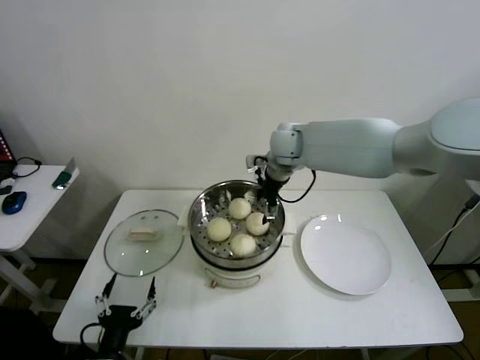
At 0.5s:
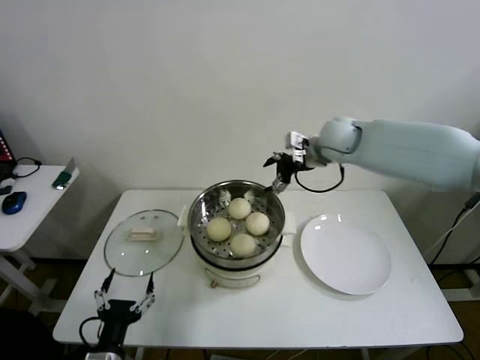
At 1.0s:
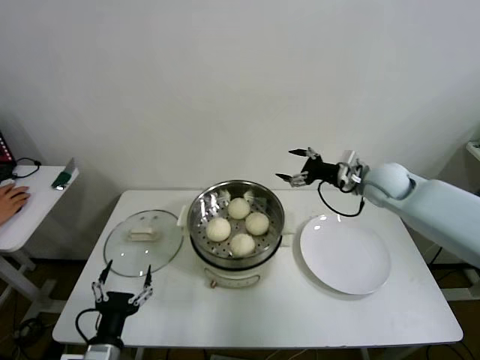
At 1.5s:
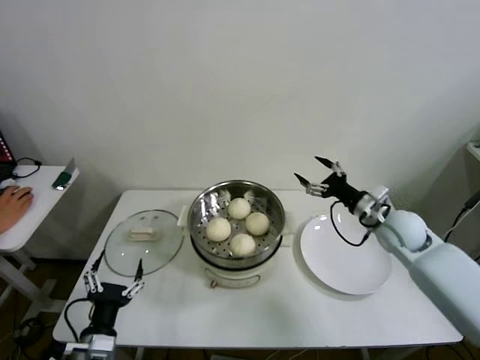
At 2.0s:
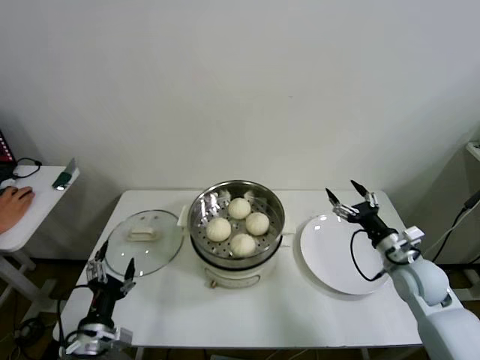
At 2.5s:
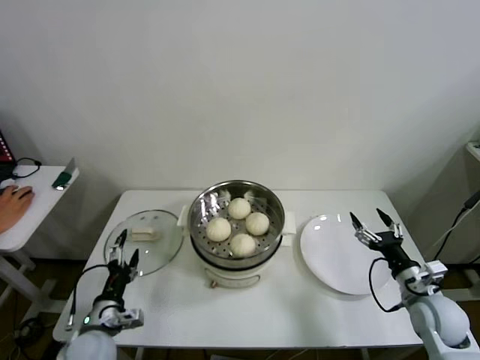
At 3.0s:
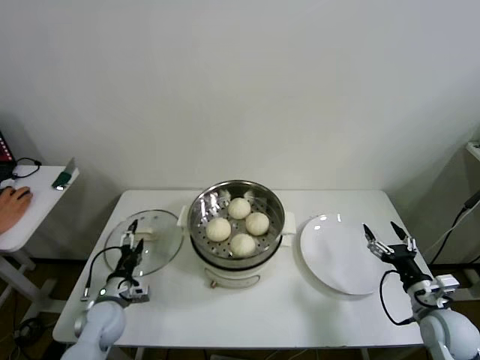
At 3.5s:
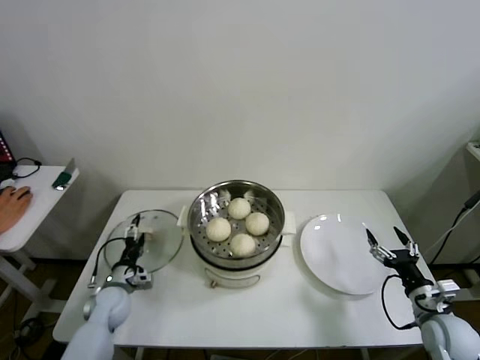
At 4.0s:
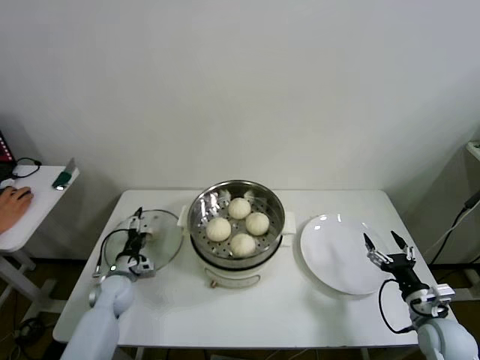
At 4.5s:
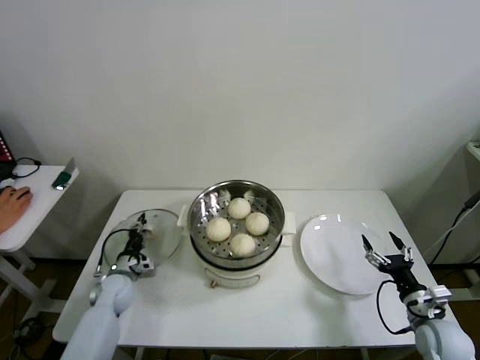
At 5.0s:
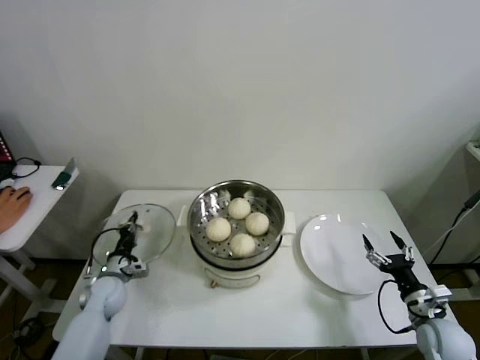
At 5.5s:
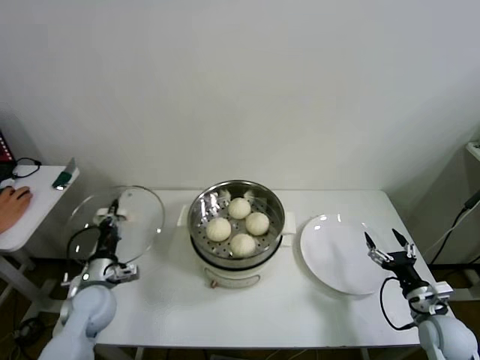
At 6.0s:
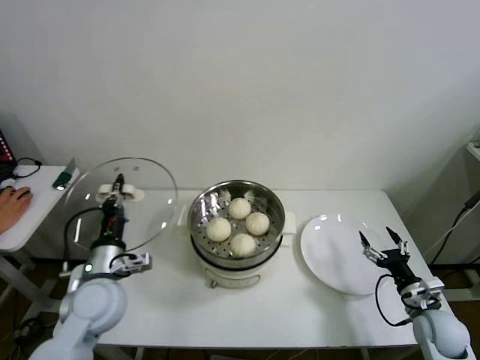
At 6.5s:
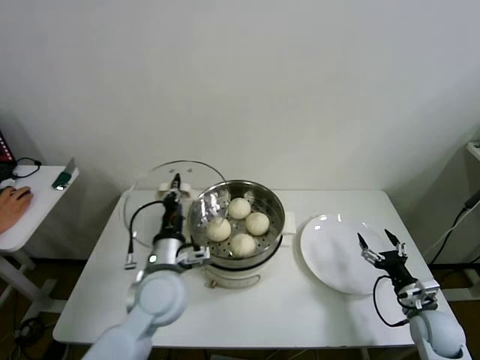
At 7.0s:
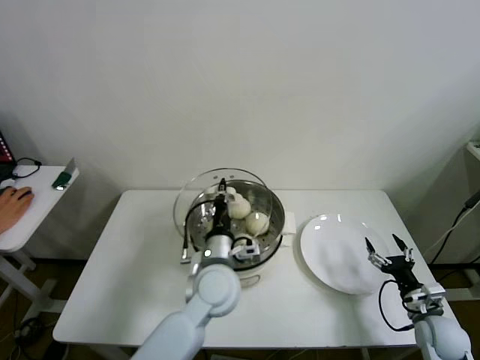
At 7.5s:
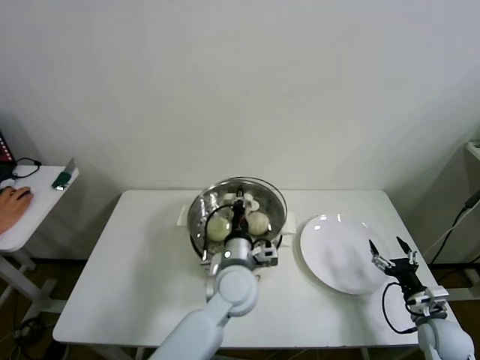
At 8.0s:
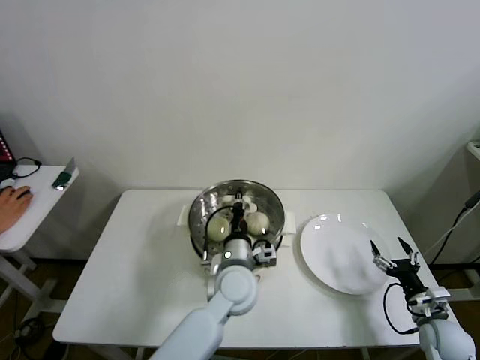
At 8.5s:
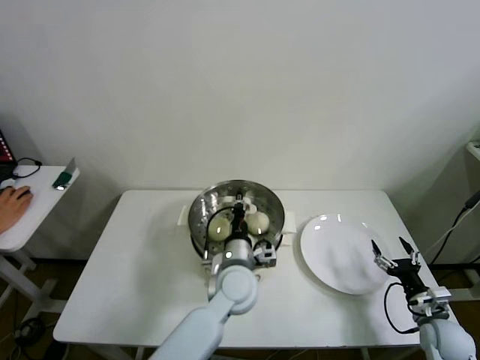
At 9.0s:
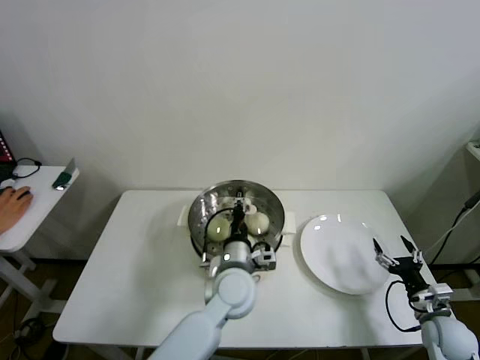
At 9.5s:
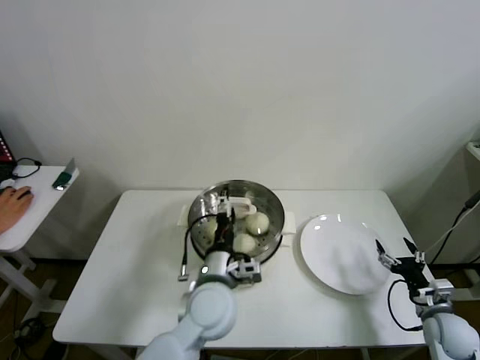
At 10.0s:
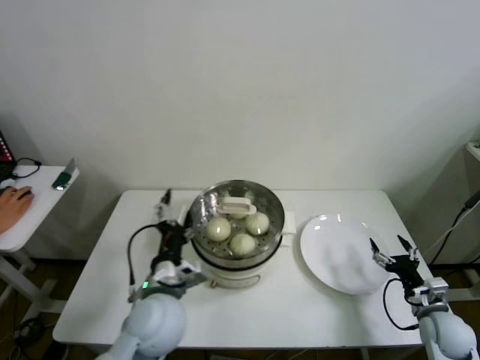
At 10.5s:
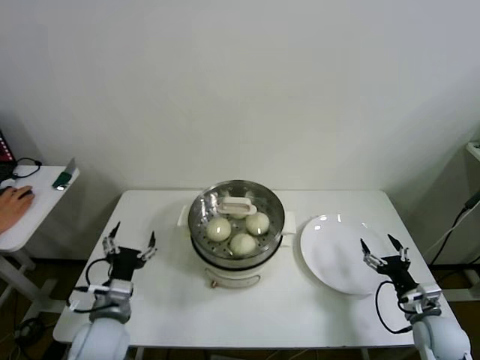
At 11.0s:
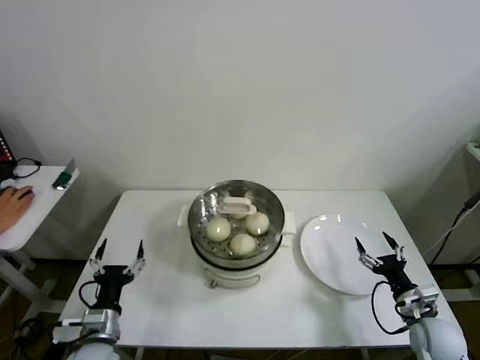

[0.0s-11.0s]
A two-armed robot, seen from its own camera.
Step, 0.0s to 5.0s: Grasp the pot lid with left gripper.
Step, 5.5s to 9.5s: Place the pot lid on the steamer with left gripper.
0.0s to 2.0s: The left gripper heads forward, covering approximately 5 cm, while the right gripper heads to the right, backward and downward, covering roughly 40 cm.
2.0s to 3.5s: The left gripper travels forward and downward by roughly 20 cm, while the right gripper is displaced backward, downward and to the right by roughly 15 cm.
3.5s to 5.5s: The left gripper is displaced upward by roughly 5 cm, and closes its fingers.
5.5s to 7.5s: The left gripper goes about 35 cm to the right.
7.5s to 9.0s: The grippers move only a little.
9.0s to 11.0s: The left gripper heads to the left and backward, covering roughly 30 cm, and opens up.

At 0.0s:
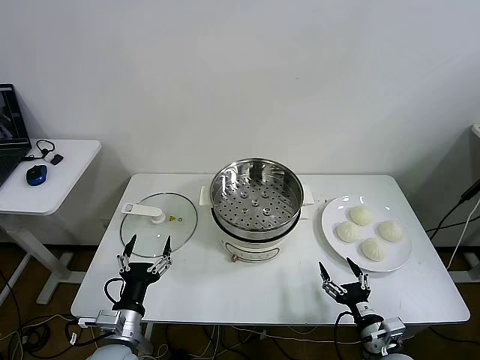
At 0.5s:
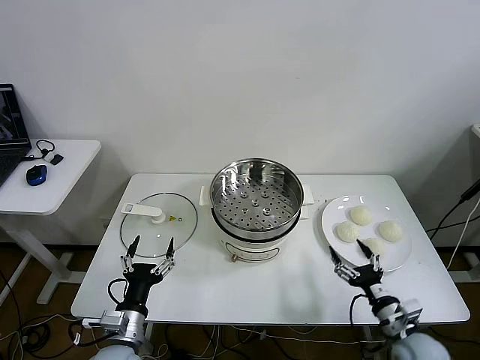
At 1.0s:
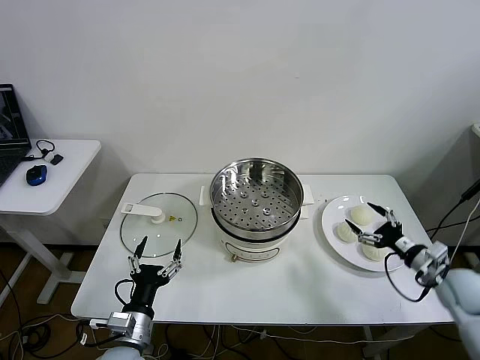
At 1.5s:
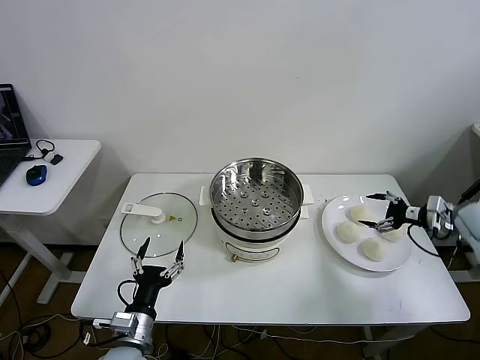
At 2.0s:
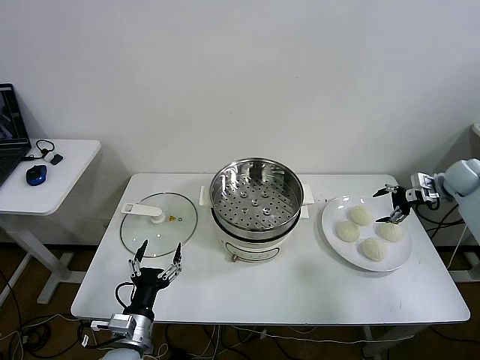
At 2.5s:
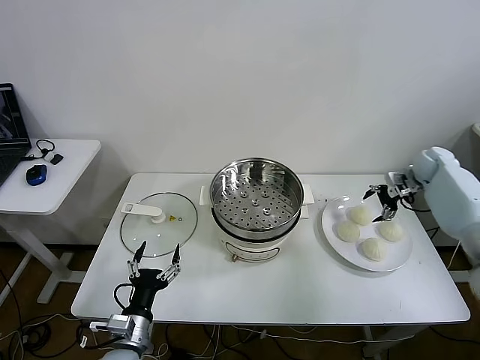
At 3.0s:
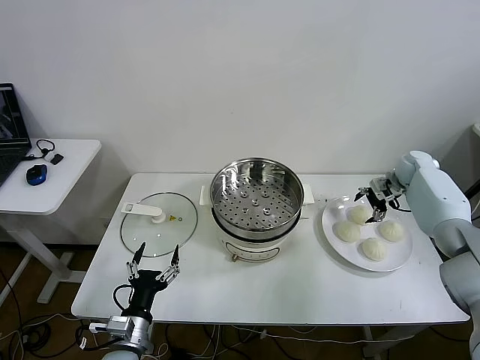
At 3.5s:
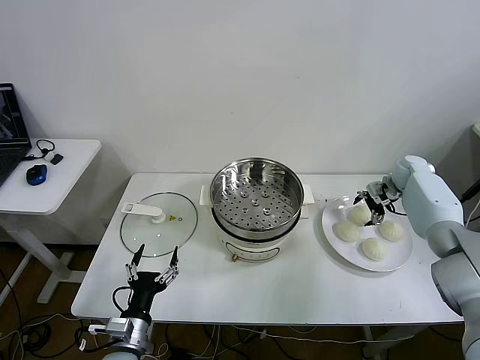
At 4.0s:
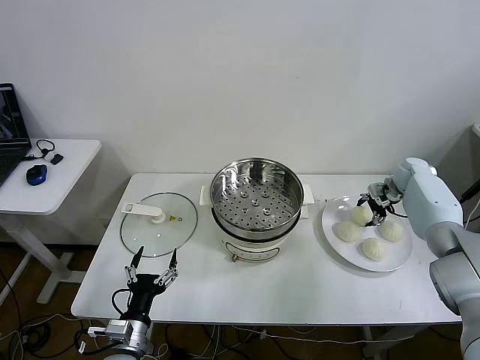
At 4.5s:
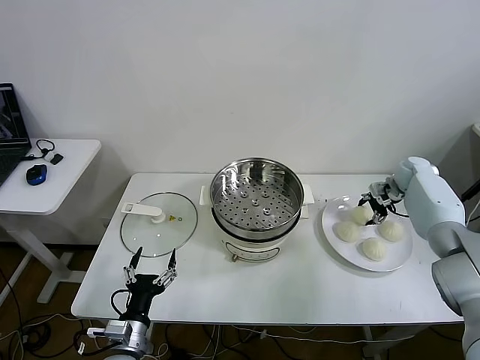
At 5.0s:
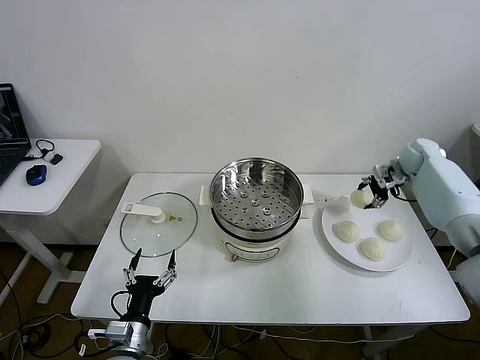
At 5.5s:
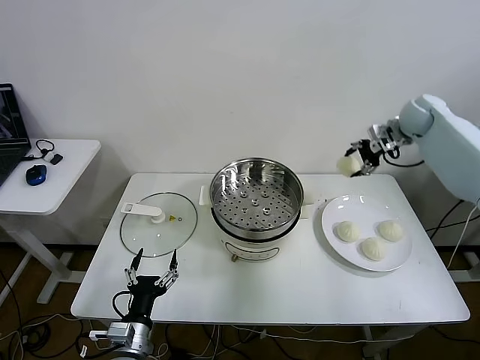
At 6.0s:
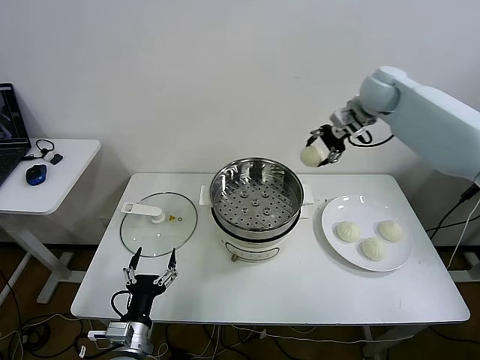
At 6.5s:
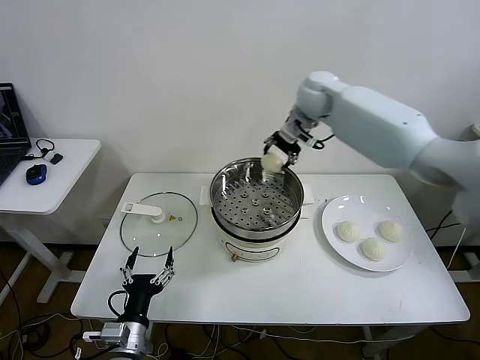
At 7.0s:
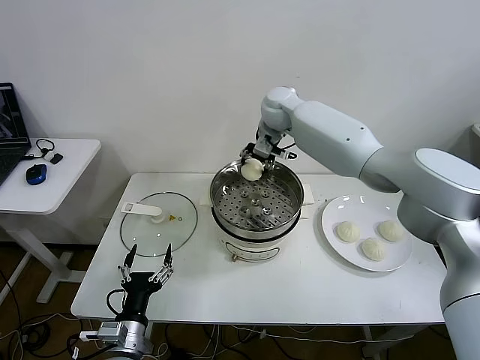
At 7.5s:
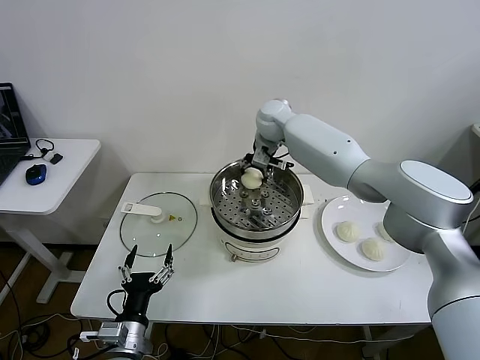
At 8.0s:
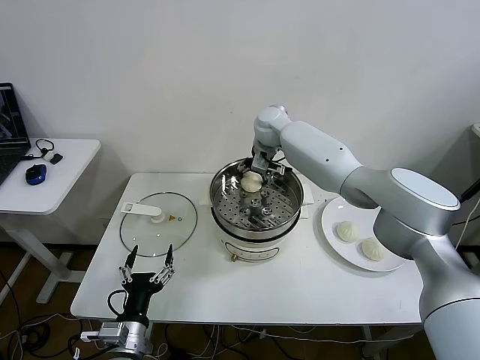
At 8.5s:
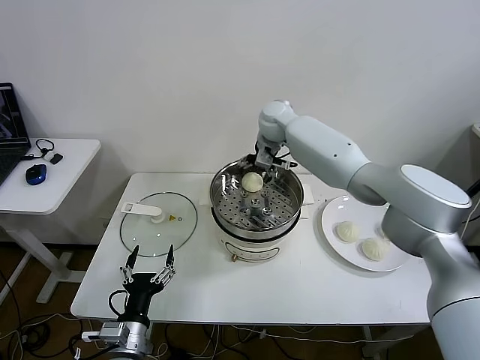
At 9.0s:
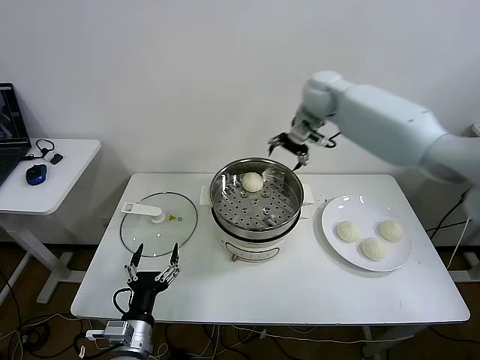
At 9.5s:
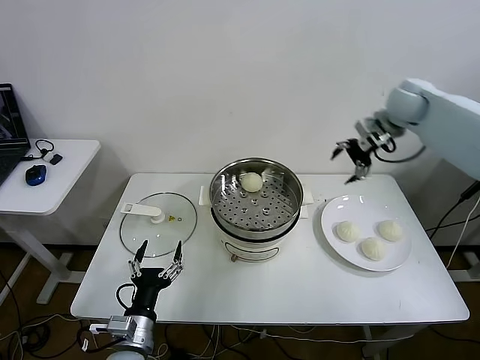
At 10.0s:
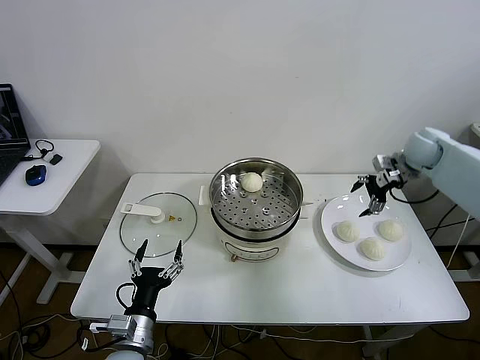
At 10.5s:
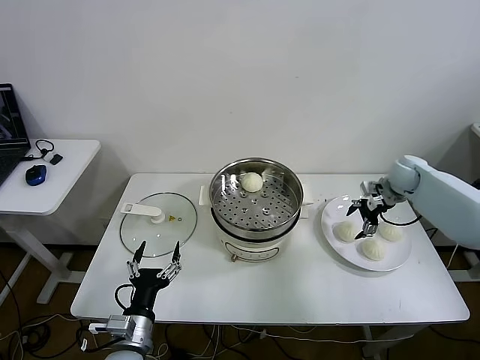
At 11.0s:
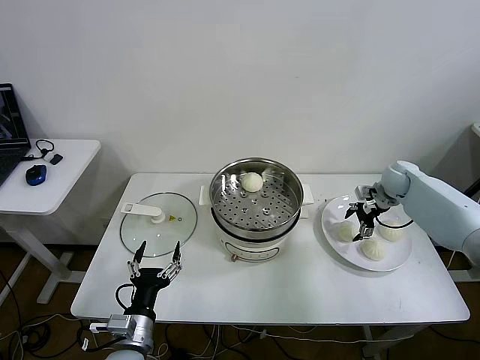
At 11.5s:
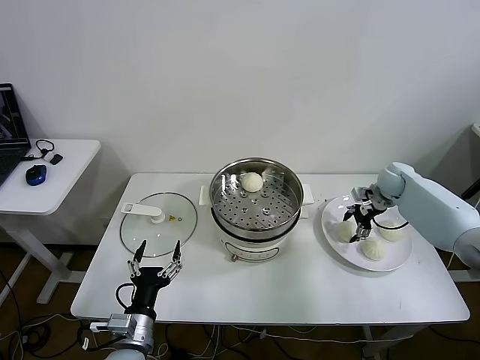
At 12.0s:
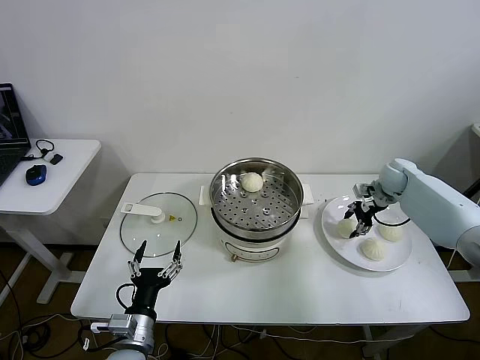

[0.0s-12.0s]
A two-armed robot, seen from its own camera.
Step, 0.0s to 4.0s: Grasp the baozi in the plate with right gripper.
Step, 4.5s to 8.5s: Place the baozi on the steamer with right gripper.
Step, 9.0s to 11.5s: Grasp the baozi in the plate with right gripper.
2.0s to 4.0s: The right gripper travels to the left, downward and forward by approximately 10 cm, and closes up.
4.0s to 6.0s: The right gripper moves upward and to the left, some 35 cm.
6.0s to 8.0s: The right gripper moves to the left and downward, approximately 25 cm, and opens its fingers.
8.0s to 10.0s: The right gripper heads to the right, covering approximately 35 cm.
10.0s to 12.0s: The right gripper is displaced downward by roughly 10 cm, and closes up.

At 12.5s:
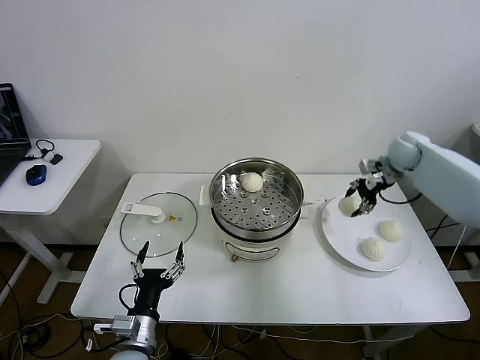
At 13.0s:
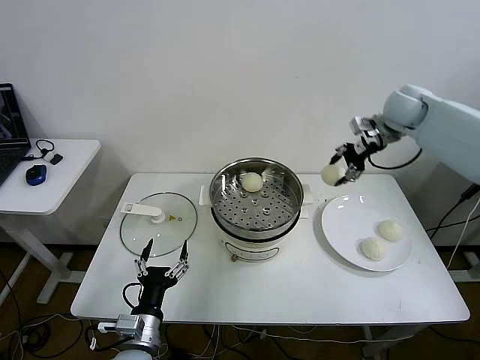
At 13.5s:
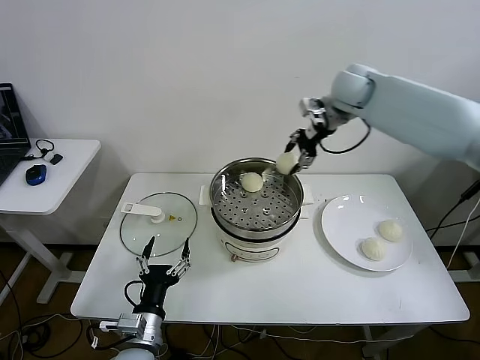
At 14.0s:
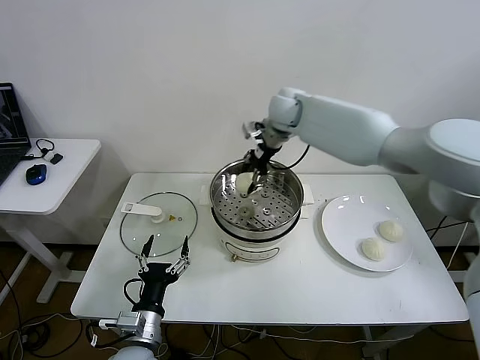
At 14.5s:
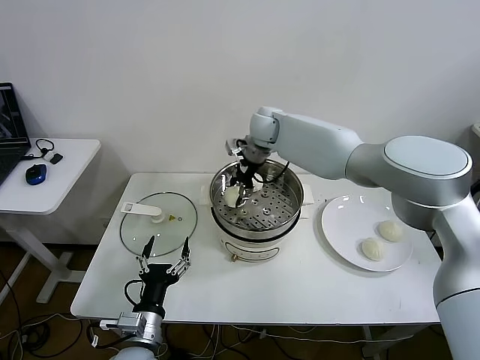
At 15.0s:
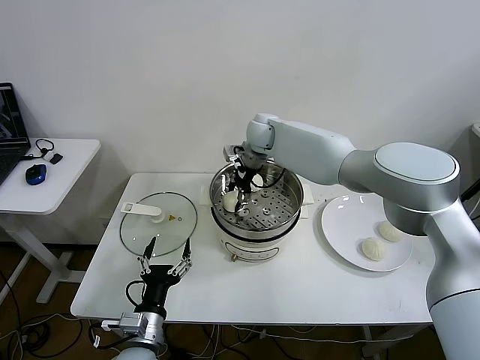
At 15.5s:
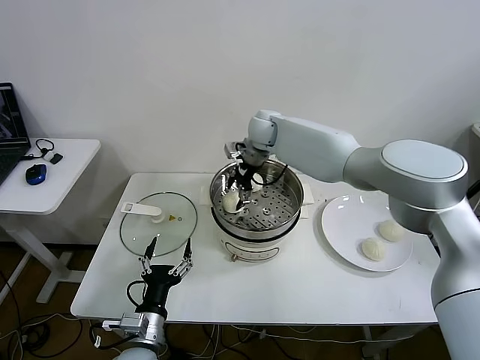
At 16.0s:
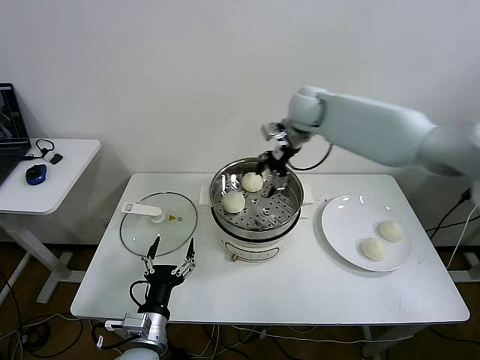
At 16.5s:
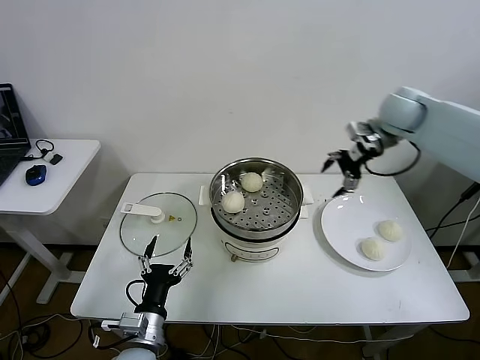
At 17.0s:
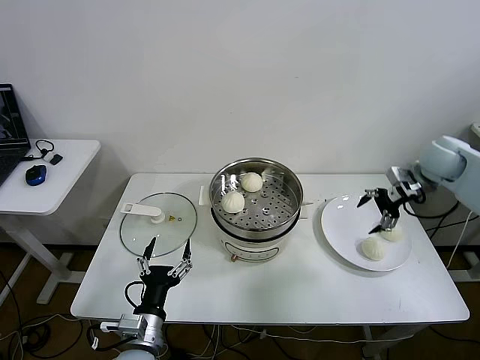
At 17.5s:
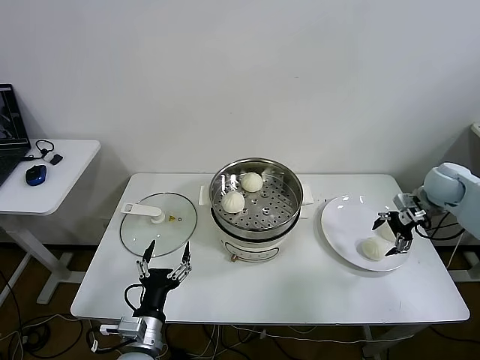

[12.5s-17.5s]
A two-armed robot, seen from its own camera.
Step, 12.5s to 15.0s: Place the baozi on the steamer with right gripper.
12.5s to 15.0s: The right gripper is displaced to the left by about 35 cm.
15.0s to 17.5s: The right gripper heads to the right, covering about 40 cm, and opens its fingers.
